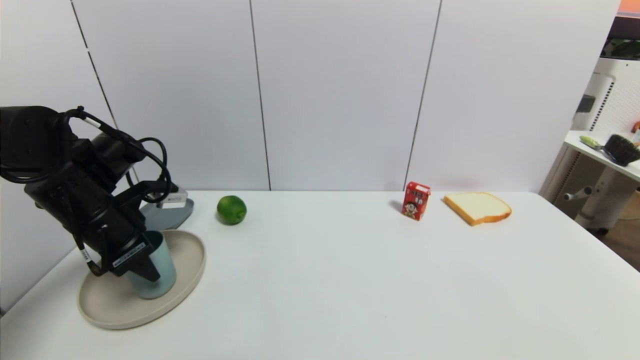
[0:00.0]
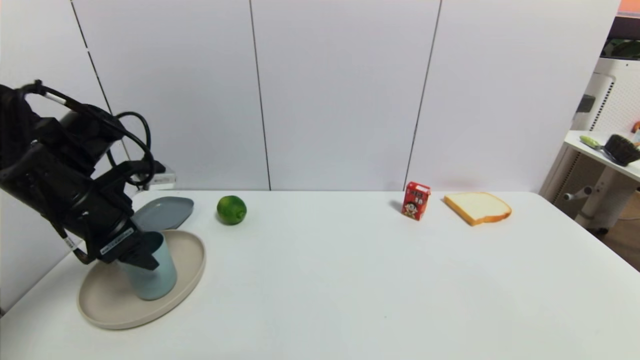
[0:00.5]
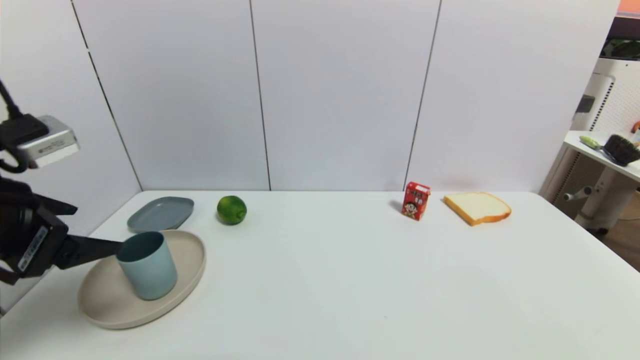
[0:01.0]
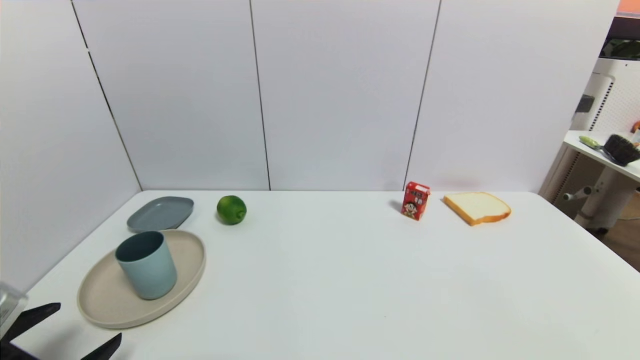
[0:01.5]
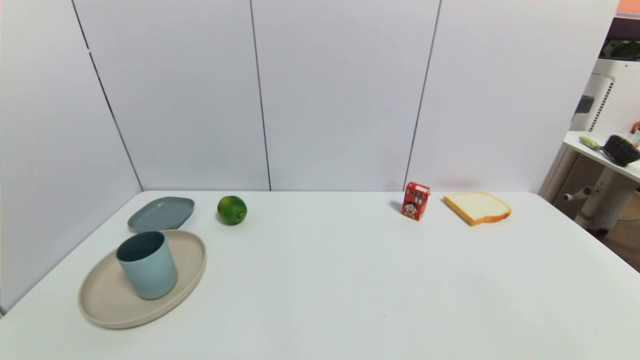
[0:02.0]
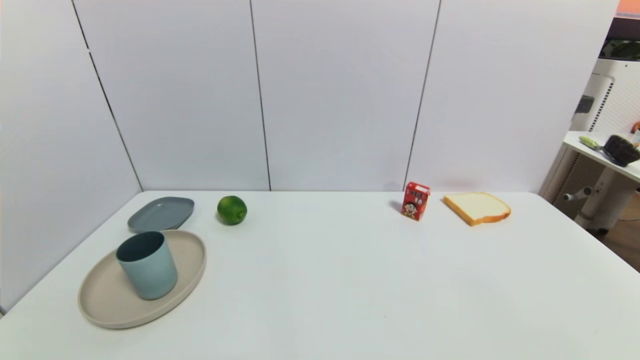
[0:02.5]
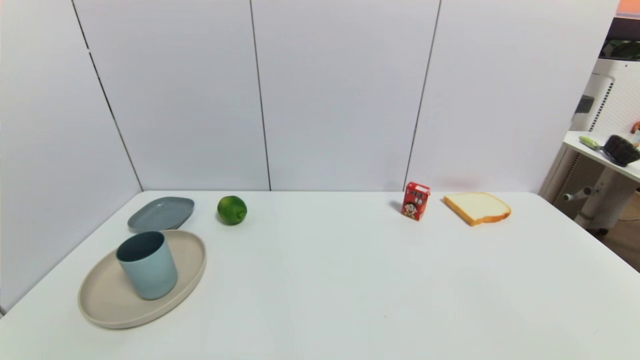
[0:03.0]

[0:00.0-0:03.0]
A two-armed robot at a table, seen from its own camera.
Task of the whole recording: use a gripper to pick the target object and place on the brown plate.
0:00.0 to 0:01.5: The left gripper heads backward, covering some 20 cm, and opens its fingers.
0:01.5 to 0:03.0: The left gripper travels backward and downward by some 10 cm.
